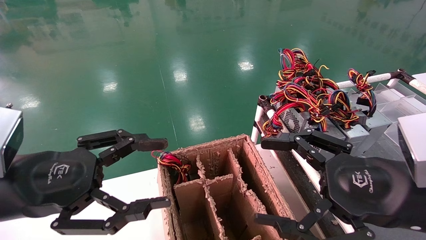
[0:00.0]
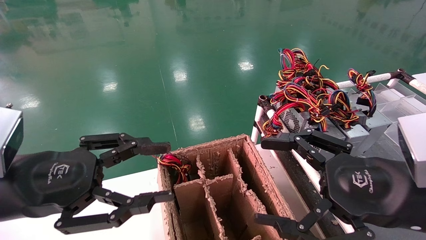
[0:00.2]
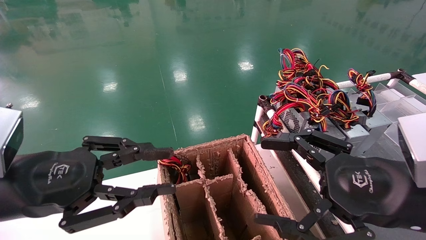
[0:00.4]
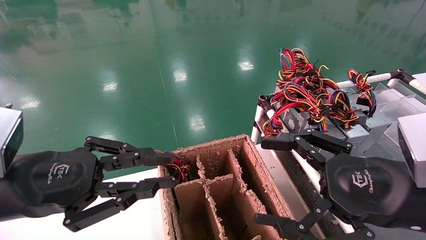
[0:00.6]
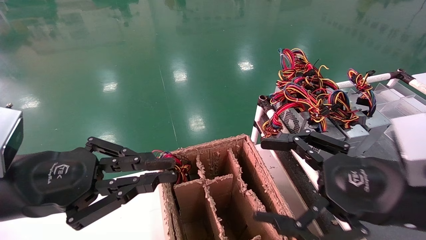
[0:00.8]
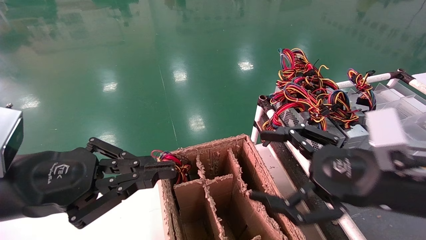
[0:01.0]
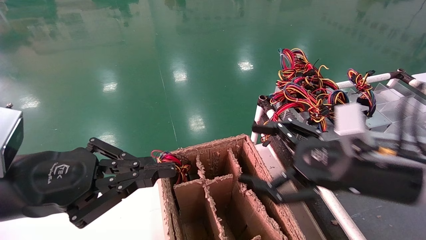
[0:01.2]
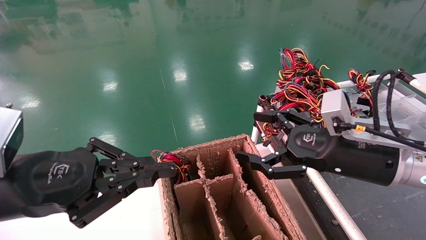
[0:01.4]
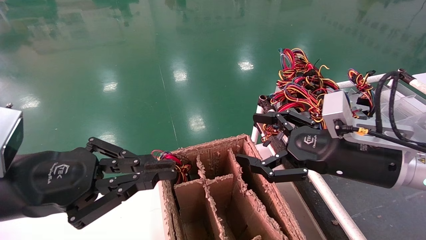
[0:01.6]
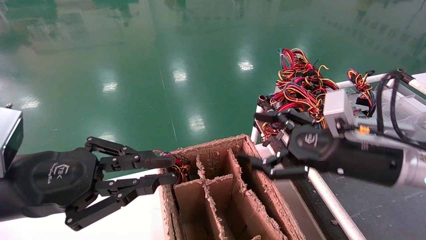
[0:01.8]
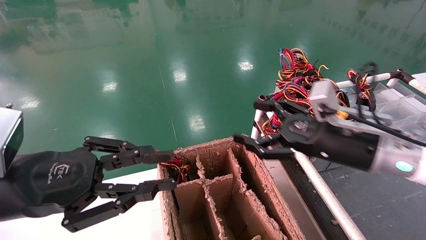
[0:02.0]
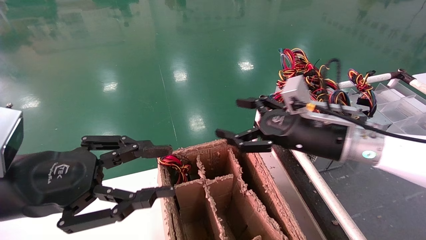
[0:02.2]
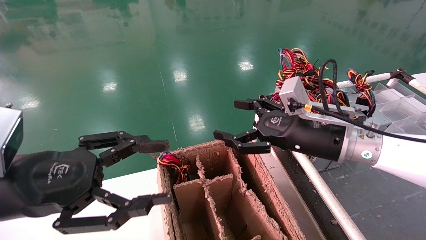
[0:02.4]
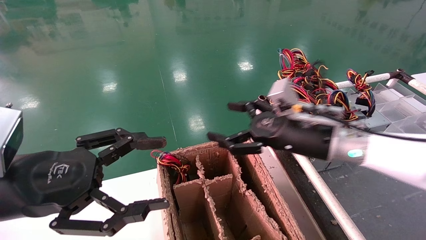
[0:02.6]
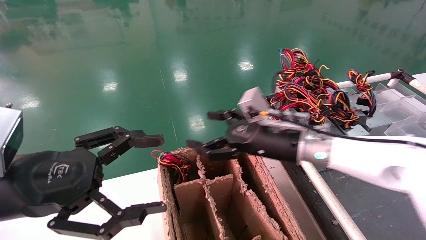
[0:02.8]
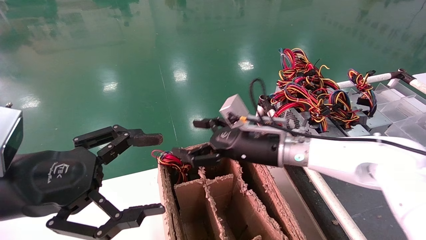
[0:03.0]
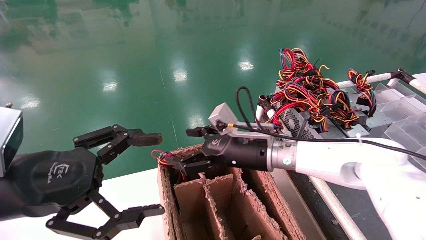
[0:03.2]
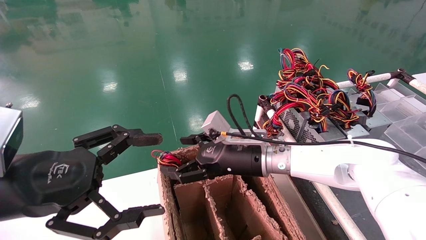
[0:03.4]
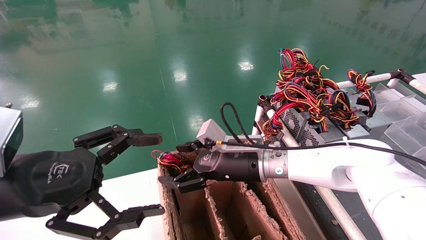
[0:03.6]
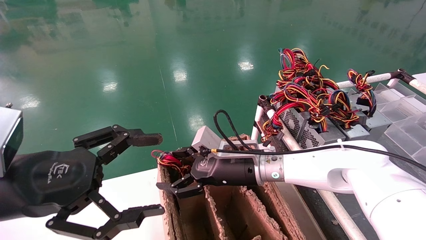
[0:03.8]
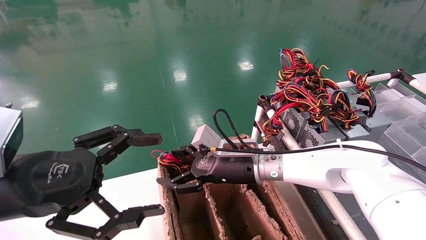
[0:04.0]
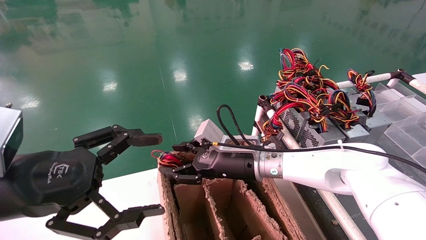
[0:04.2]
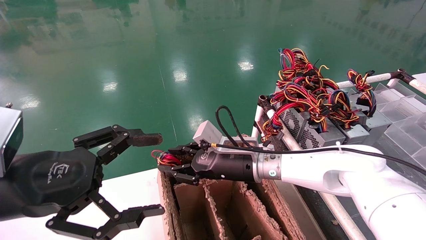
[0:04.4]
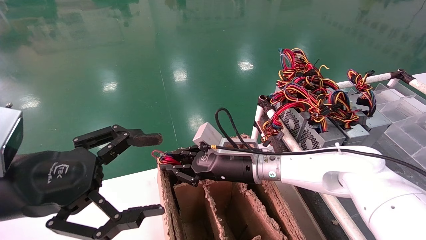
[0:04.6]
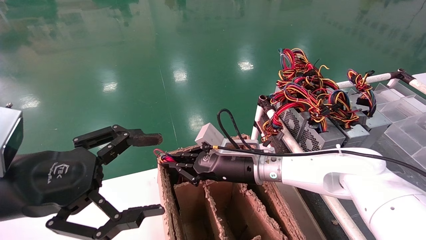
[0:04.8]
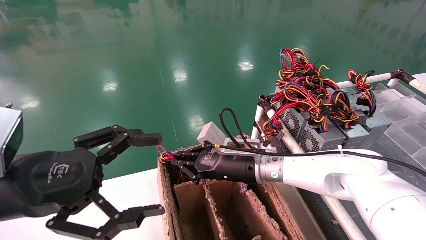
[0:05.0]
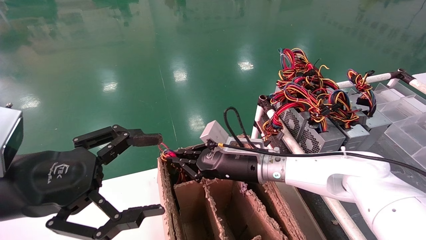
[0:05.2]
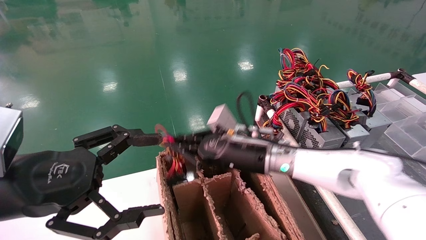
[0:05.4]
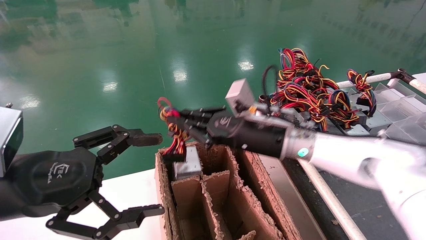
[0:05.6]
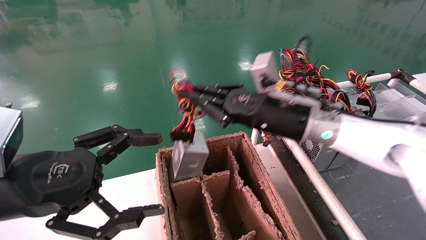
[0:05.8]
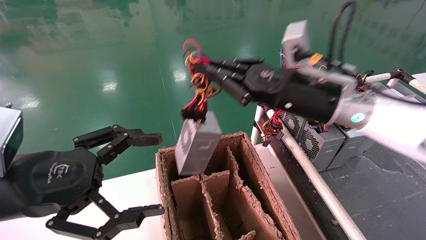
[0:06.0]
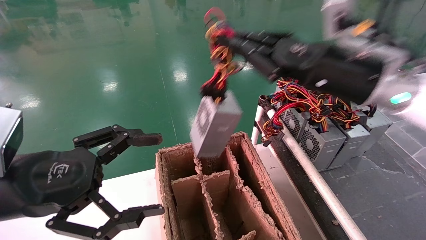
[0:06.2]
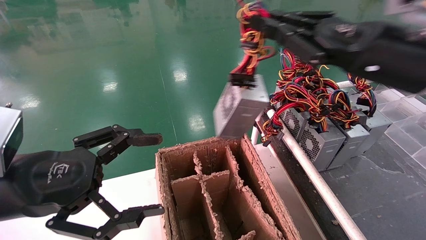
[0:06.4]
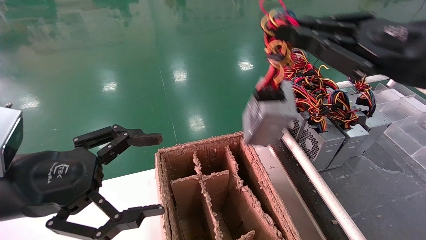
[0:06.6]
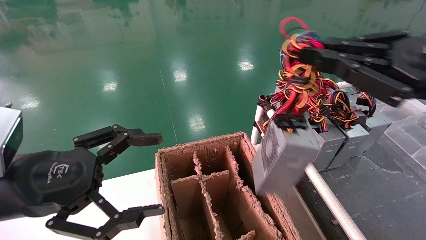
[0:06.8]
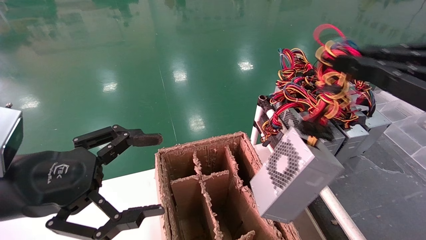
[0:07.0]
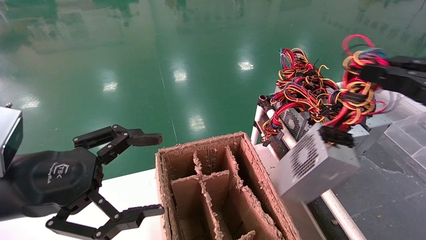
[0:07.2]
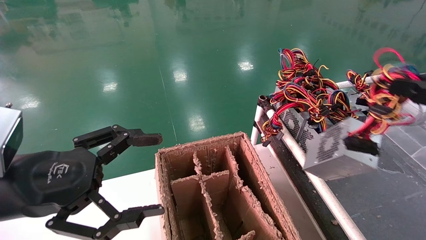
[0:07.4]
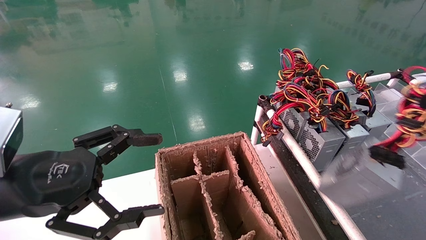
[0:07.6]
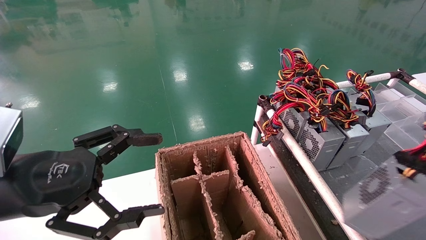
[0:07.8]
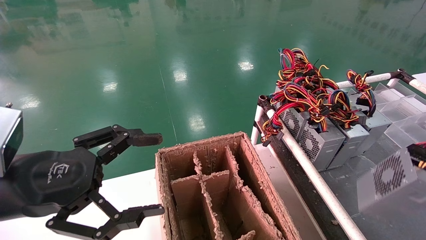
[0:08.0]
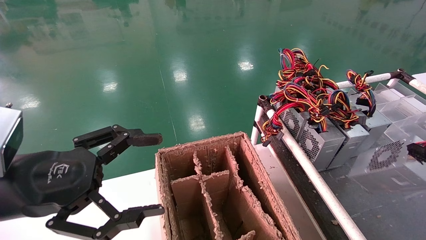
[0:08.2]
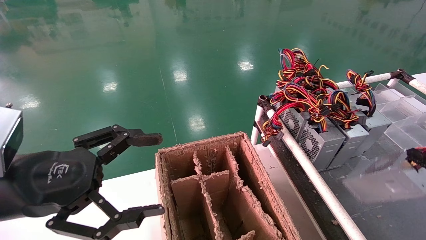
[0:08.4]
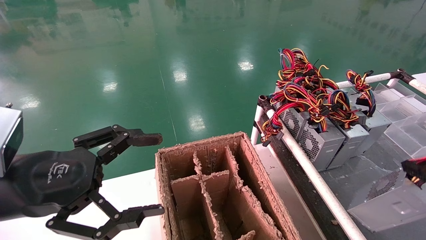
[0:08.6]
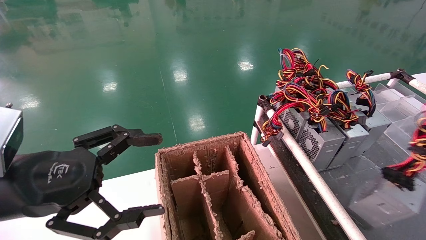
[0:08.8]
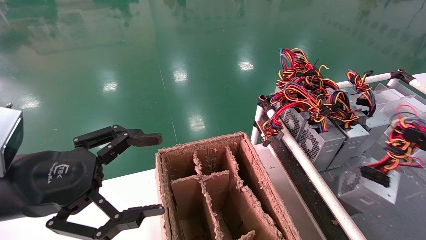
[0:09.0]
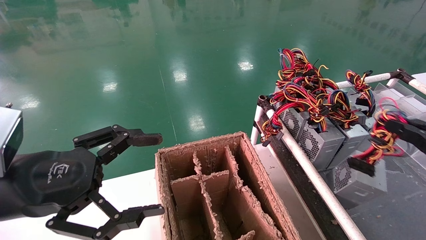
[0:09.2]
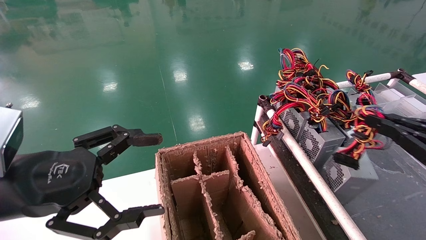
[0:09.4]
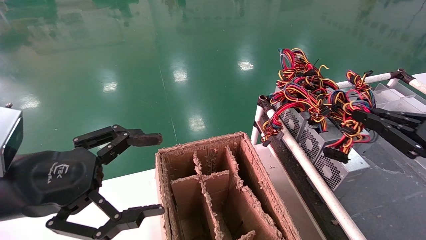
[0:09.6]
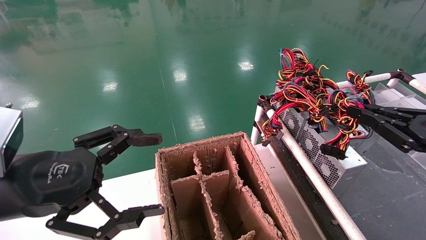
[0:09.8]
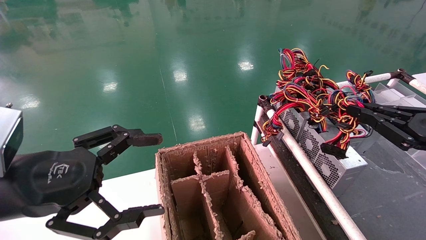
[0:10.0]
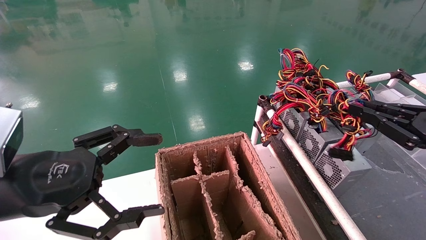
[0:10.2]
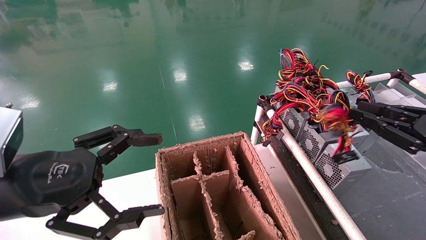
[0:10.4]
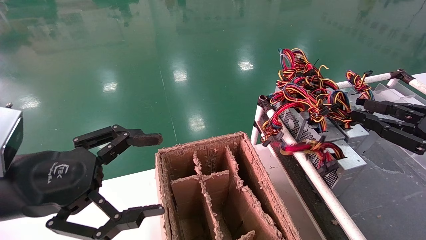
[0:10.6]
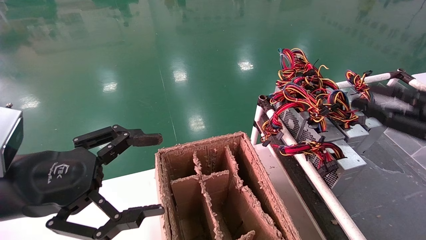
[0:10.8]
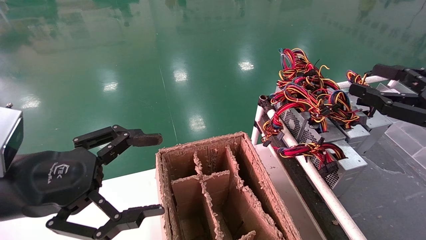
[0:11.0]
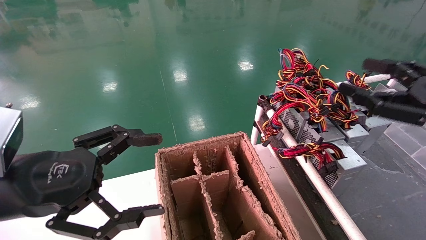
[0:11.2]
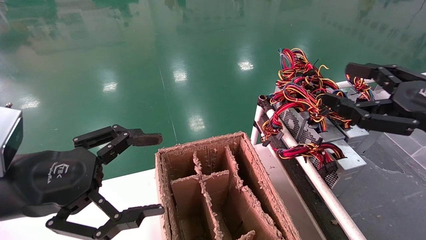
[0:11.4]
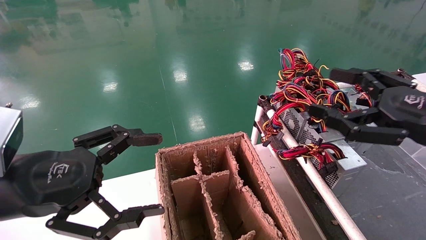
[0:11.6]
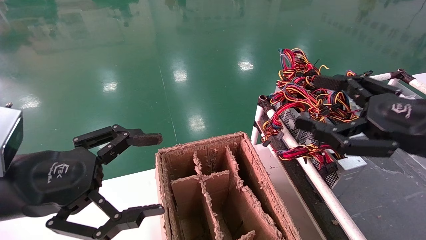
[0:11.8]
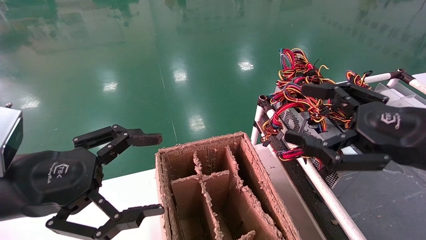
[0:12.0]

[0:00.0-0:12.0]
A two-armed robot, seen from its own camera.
Step, 0:01.2 to 0:04.8: Grab and lift the power supply from the large box.
Step, 0:05.0 to 0:10.2: Place the power supply on the operating table.
0:00.0 to 0:01.6: The right gripper shifts roughly 10 cm forward, while the left gripper closes.
0:01.6 to 0:03.0: The right gripper heads to the left and forward, covering some 15 cm. Meanwhile the left gripper opens its fingers.
0:03.0 to 0:04.4: The right gripper changes place by about 5 cm, and closes up.
0:04.4 to 0:06.0: The right gripper heads upward and to the right, covering roughly 20 cm, and closes.
0:06.0 to 0:07.6: The right gripper goes about 35 cm to the right and backward.
0:07.6 to 0:09.0: The right gripper moves downward, some 10 cm.
0:09.0 to 0:10.4: The right gripper moves forward, approximately 10 cm.
0:10.4 to 0:12.0: The right gripper travels to the left by approximately 10 cm, and opens its fingers.

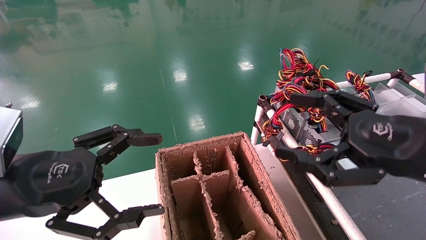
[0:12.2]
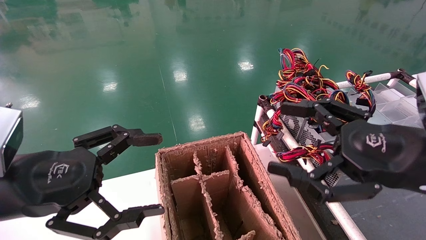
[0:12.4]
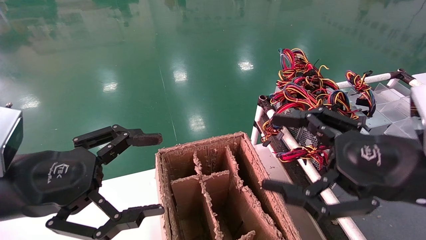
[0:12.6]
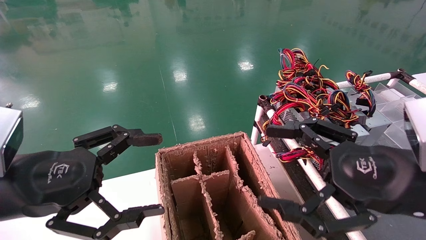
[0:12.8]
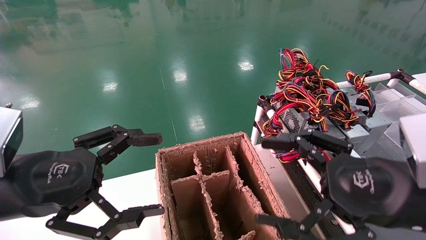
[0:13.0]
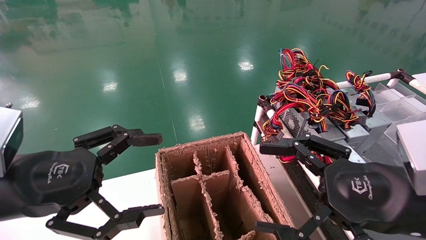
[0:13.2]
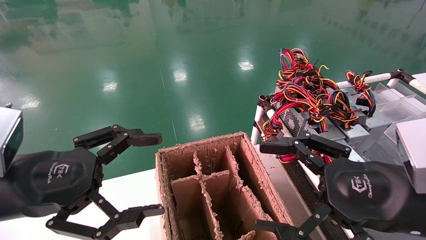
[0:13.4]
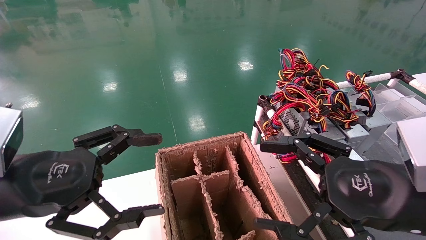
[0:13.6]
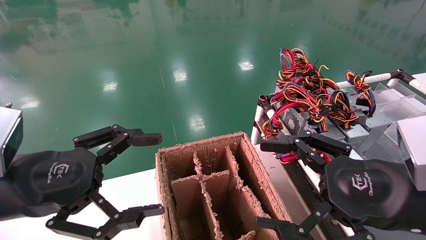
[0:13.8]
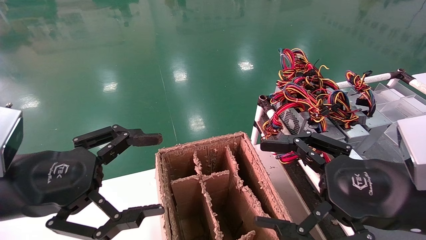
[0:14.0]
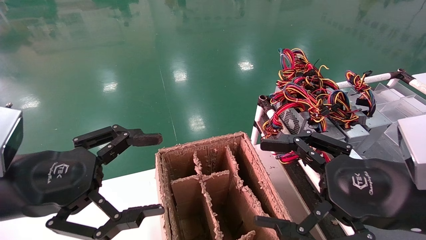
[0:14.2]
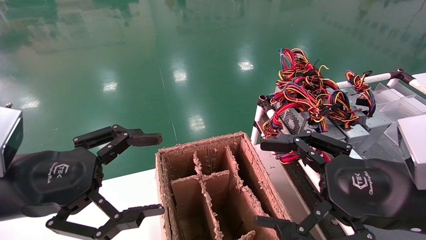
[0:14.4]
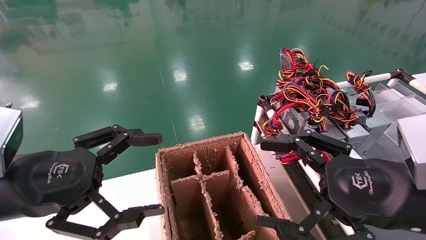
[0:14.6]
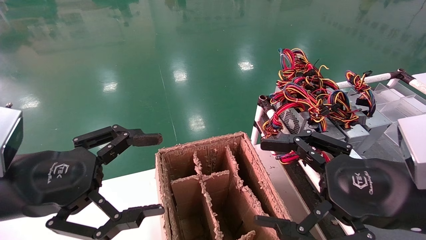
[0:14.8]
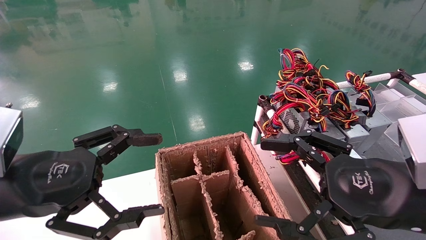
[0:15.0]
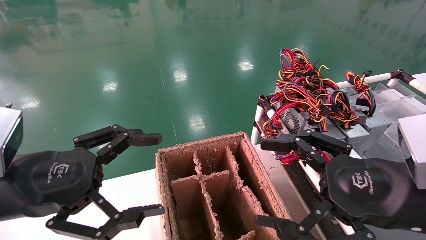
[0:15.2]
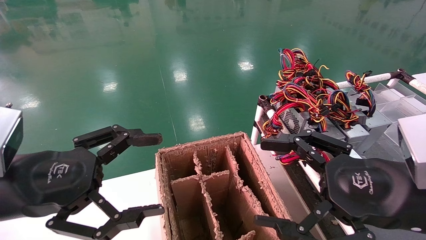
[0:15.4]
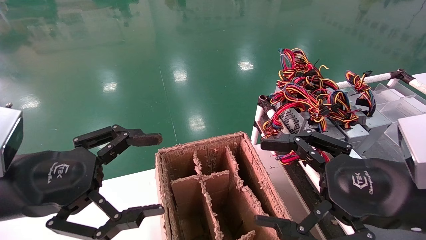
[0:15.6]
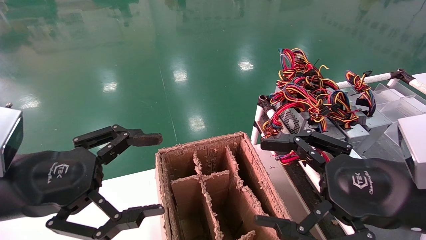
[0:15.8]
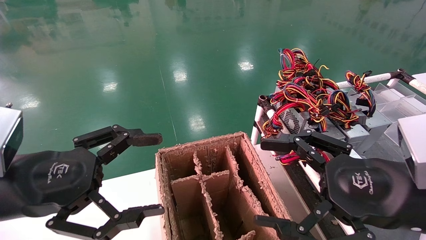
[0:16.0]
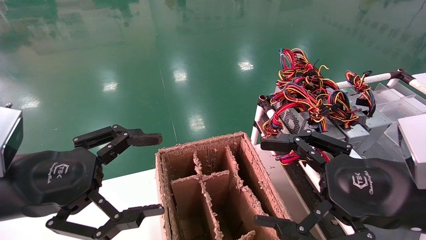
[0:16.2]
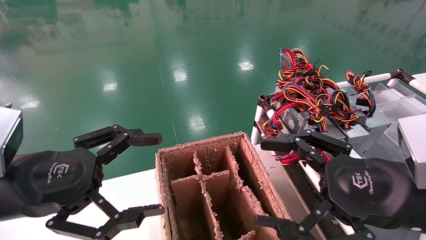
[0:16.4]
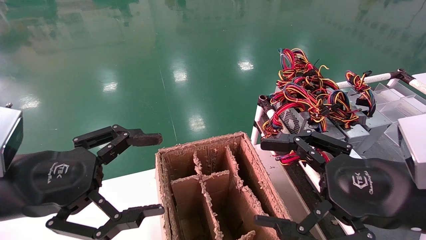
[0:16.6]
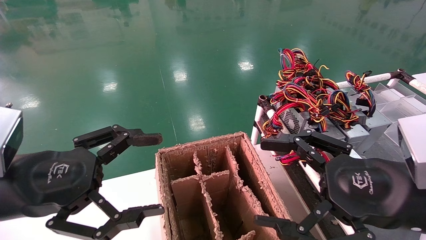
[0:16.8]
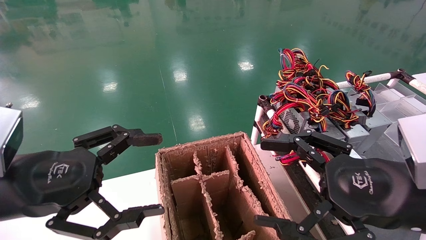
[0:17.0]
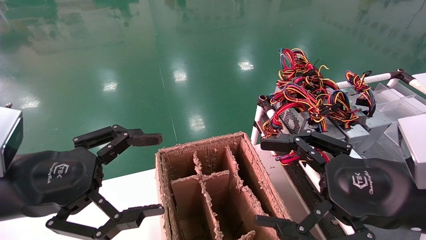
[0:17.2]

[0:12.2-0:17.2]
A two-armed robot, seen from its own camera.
0:12.2 to 0:13.8: The grippers make only small movements.
0:13.8 to 0:17.2: Neither gripper changes place.
